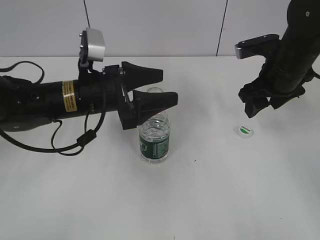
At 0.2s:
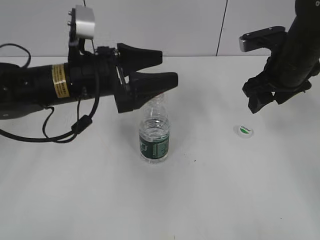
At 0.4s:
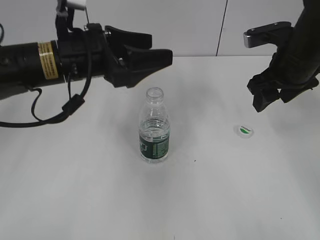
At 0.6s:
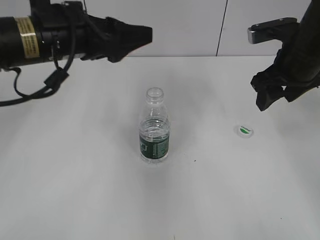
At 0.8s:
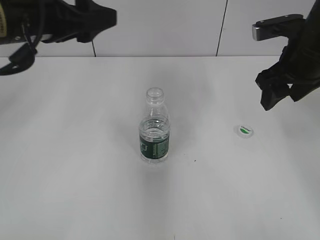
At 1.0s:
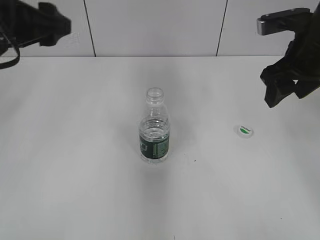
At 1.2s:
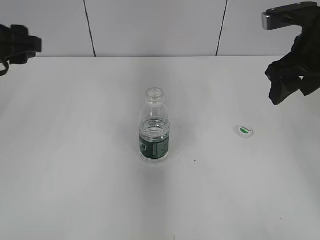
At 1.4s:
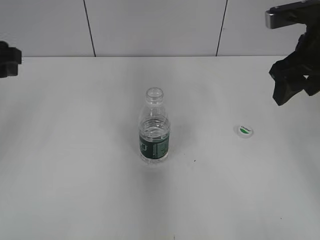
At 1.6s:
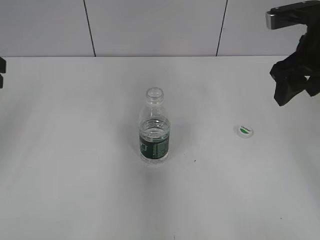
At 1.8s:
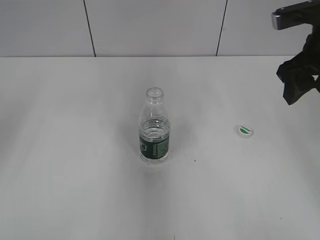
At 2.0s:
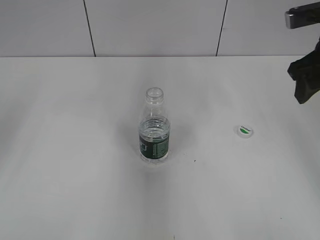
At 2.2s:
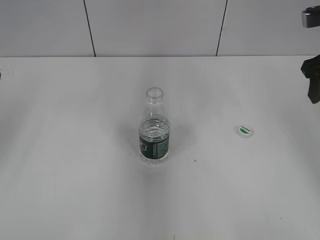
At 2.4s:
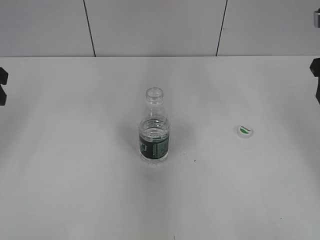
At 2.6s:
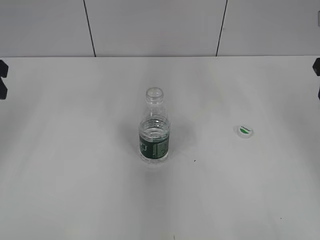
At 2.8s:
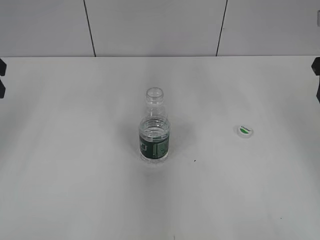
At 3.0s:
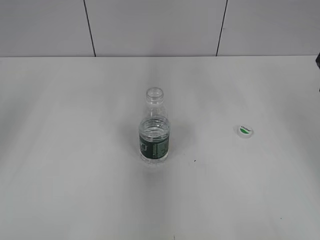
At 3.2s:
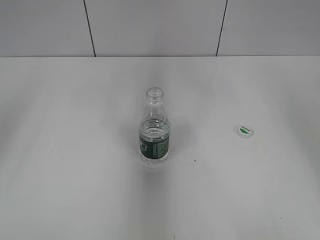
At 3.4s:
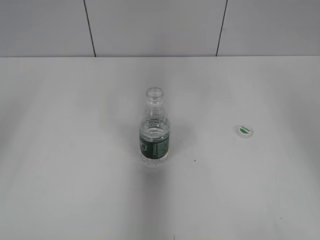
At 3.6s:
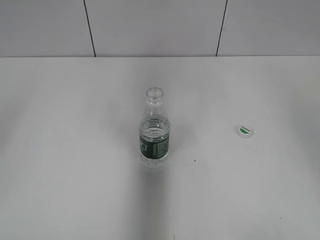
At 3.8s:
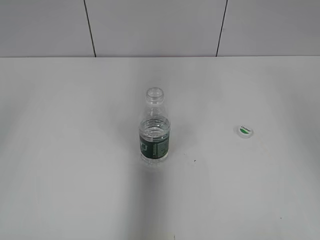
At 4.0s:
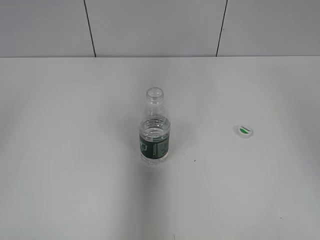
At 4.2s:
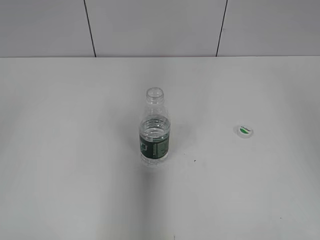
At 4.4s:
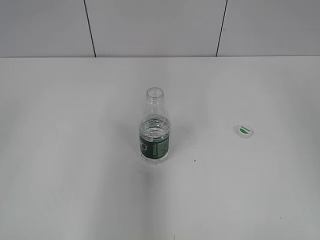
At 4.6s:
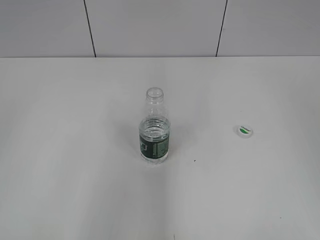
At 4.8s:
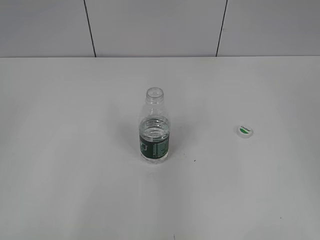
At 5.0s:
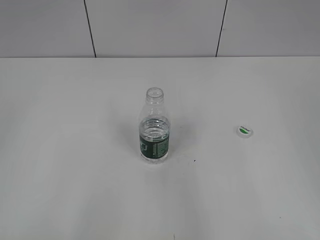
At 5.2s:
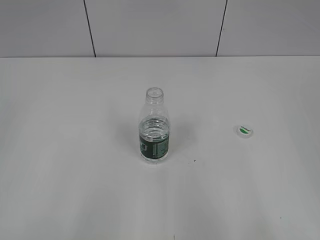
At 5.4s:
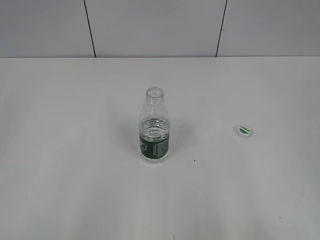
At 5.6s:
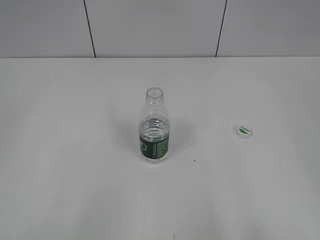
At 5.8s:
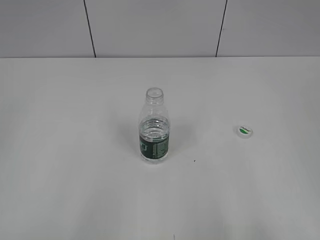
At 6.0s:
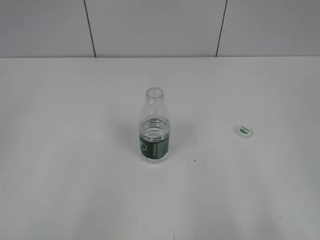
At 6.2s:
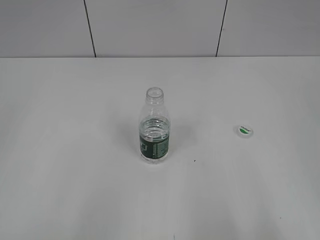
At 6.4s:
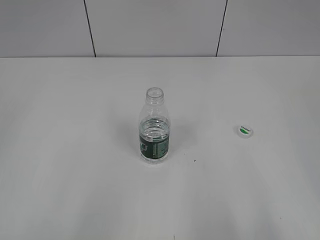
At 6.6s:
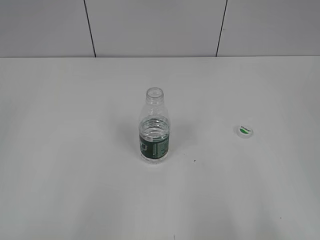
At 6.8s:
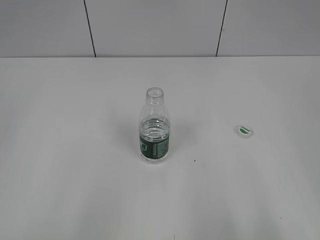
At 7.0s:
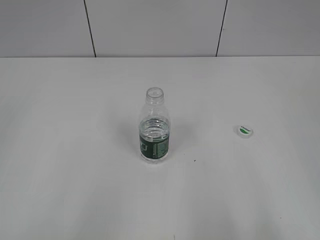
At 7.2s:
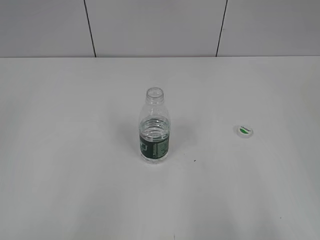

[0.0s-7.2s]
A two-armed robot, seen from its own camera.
0.0s to 1.4s: The right gripper heads upward, covering approximately 10 cm. Meanwhile the left gripper goes about 20 cm to the left and upward.
1.4s to 2.8s: The right gripper travels to the right by about 5 cm.
4.4s to 5.8s: The right gripper travels backward and downward by approximately 20 cm; the left gripper moves roughly 5 cm.

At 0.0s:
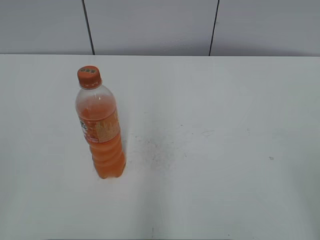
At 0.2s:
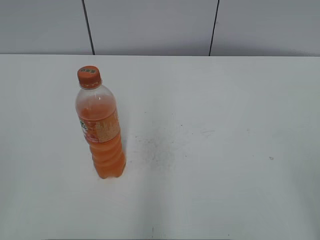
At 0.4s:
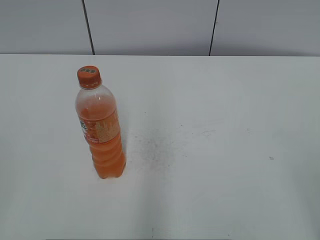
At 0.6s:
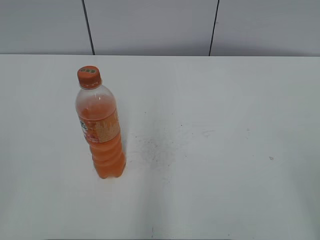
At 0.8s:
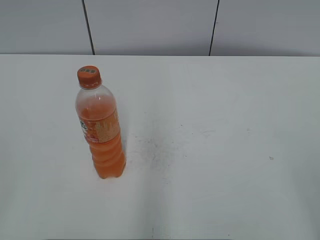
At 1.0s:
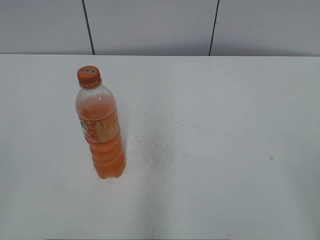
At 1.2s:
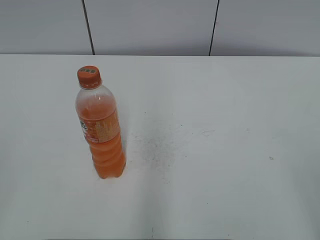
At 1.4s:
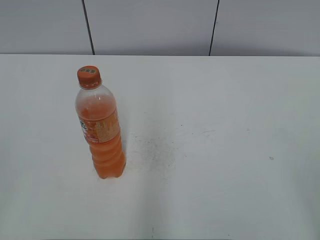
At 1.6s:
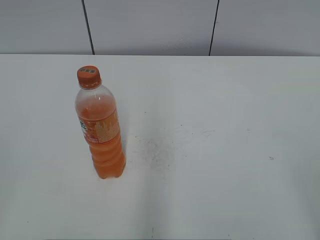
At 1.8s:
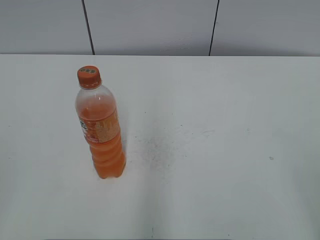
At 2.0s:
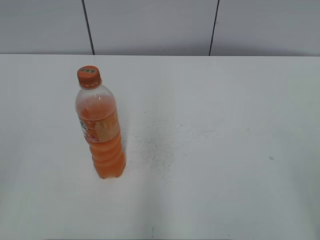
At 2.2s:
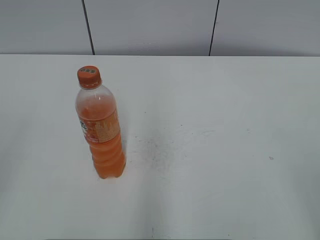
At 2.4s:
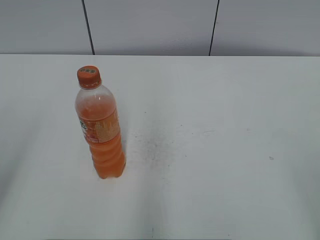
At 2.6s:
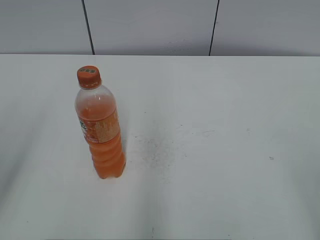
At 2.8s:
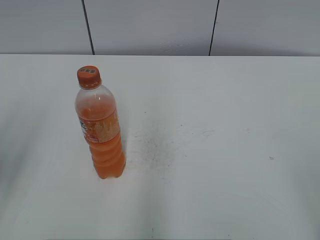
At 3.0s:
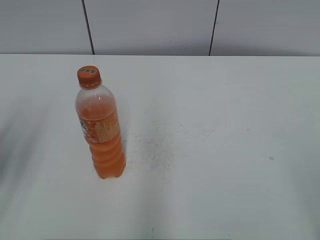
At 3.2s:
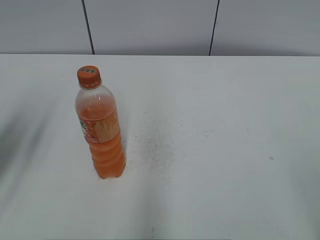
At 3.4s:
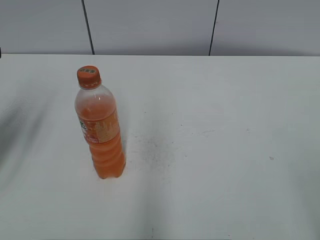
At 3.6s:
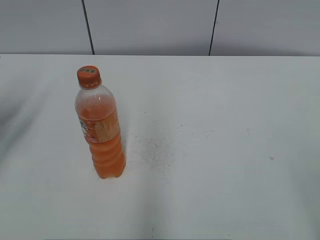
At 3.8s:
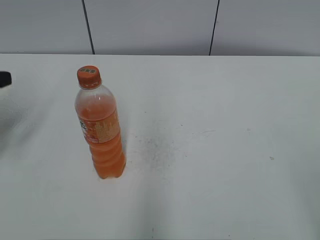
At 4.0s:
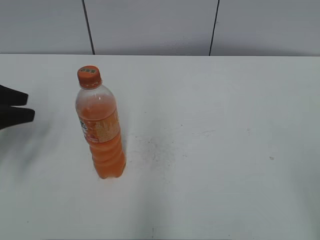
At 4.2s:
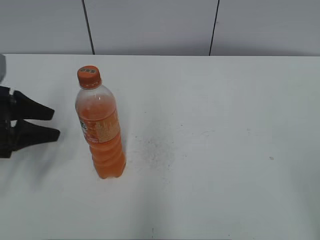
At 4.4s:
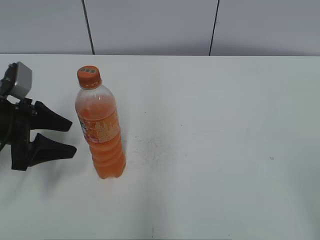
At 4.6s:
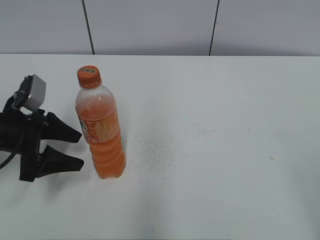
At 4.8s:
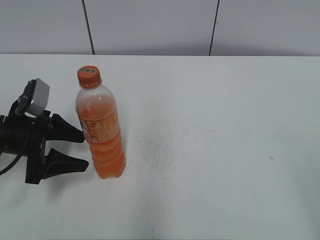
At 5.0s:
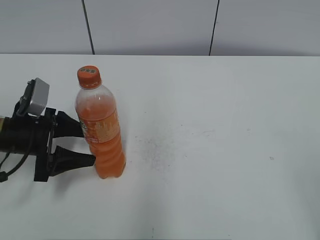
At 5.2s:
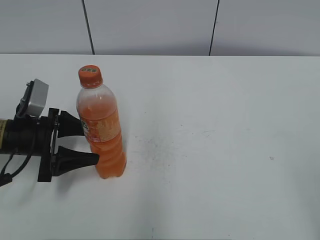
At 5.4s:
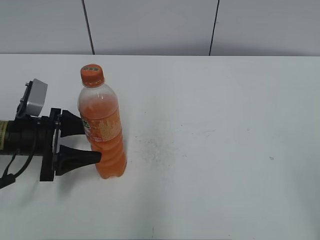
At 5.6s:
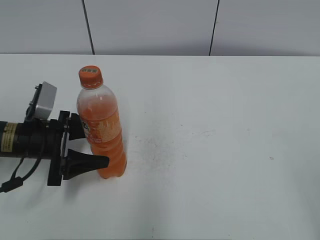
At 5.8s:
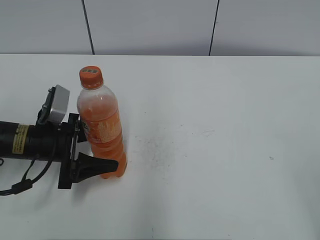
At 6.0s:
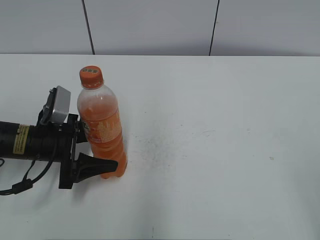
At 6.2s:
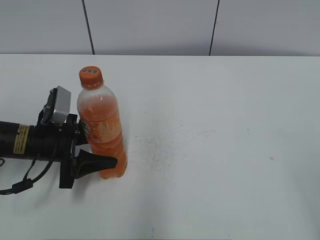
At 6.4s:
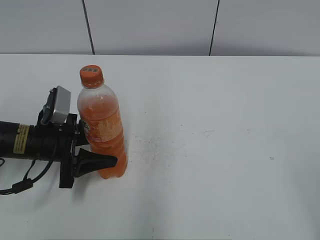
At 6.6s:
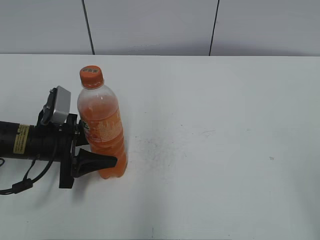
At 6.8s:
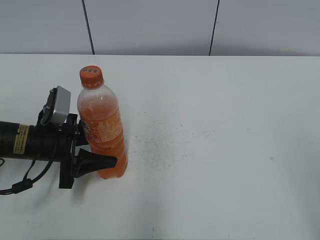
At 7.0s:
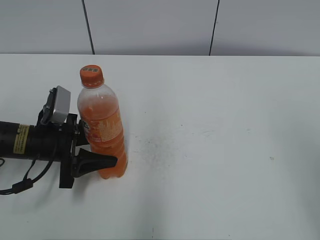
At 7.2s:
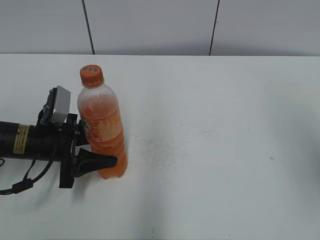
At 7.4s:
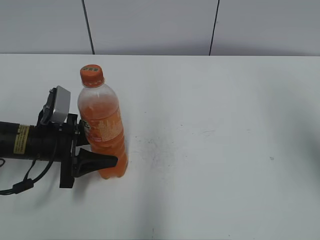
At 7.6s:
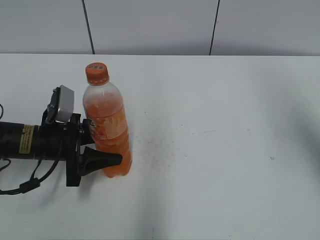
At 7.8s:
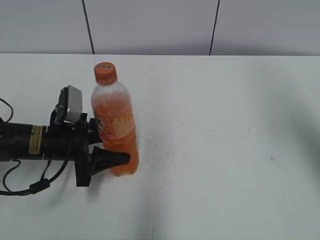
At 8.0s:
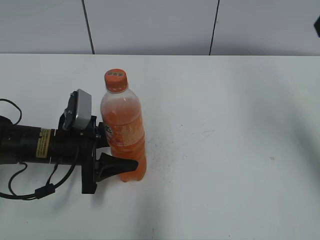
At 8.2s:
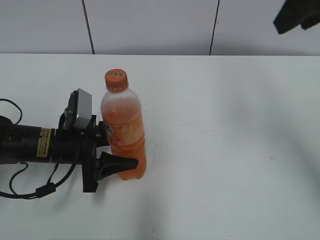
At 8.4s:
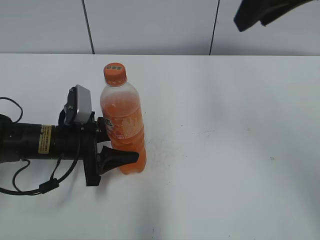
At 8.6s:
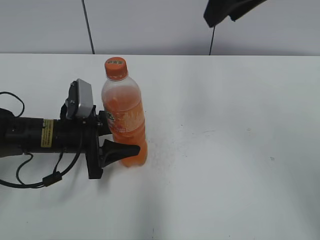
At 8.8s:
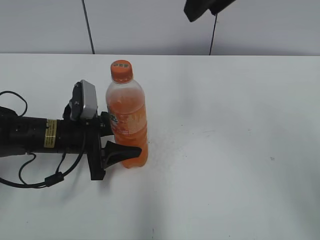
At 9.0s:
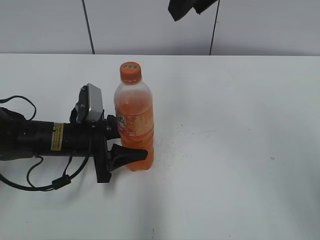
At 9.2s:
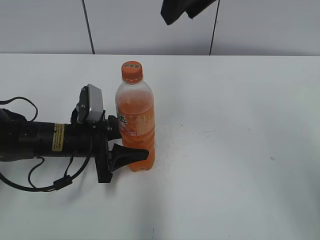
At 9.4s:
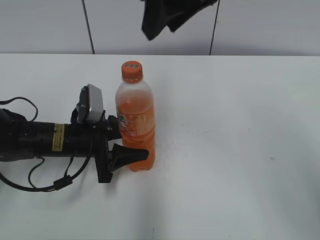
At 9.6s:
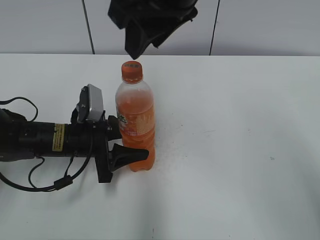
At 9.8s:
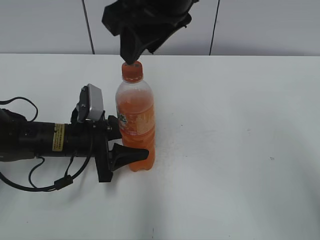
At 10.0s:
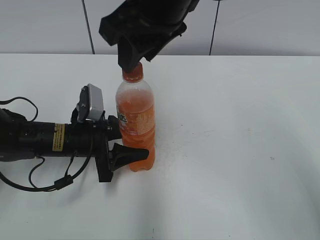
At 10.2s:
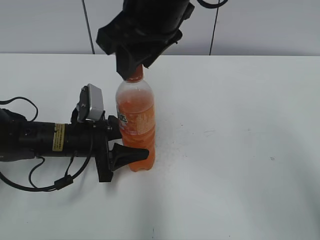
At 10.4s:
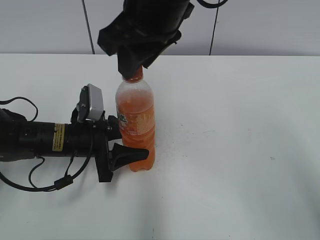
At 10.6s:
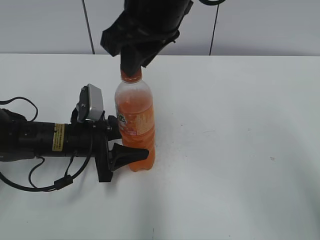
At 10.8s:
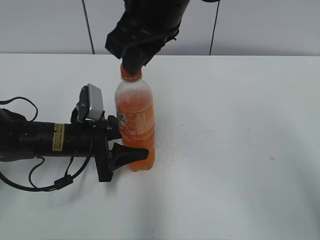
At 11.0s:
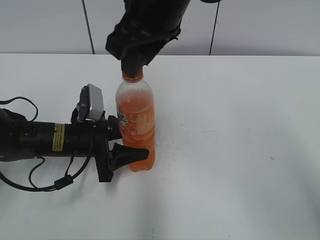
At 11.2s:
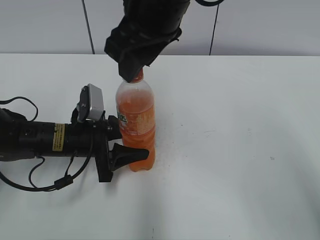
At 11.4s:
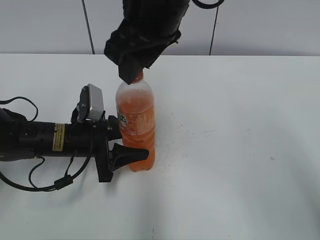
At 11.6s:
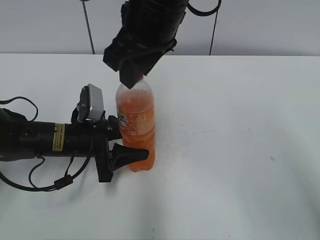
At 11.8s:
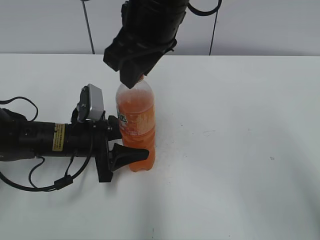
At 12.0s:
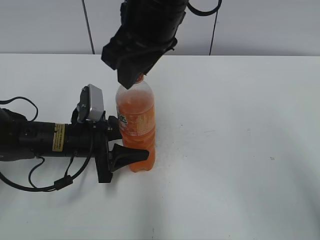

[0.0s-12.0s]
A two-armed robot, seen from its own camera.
Step, 0.0s to 6.6s: Grab the Mirinda with the left hand.
Step, 6.8s to 9.2s: Move the Mirinda from left to right.
1.6s to 3.0s: The left gripper goes roughly 20 cm forward, and opens, then closes once more.
3.0s to 4.4s: The left gripper shifts some 15 cm forward and downward, and opens up.
4.4s to 6.0s: The left gripper moves to the right and downward, about 10 cm.
6.0s to 7.6s: The left gripper closes its fingers. Meanwhile the right gripper moves forward and upward, some 25 cm, and closes its fingers.
7.6s to 9.0s: The right gripper moves to the left, approximately 20 cm.
9.0s to 10.4s: The right gripper is displaced to the left and downward by some 10 cm.
10.4s to 12.0s: The grippers make only small movements.

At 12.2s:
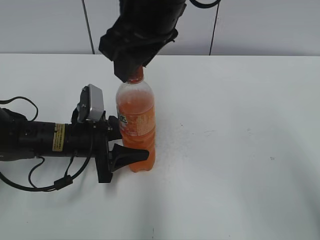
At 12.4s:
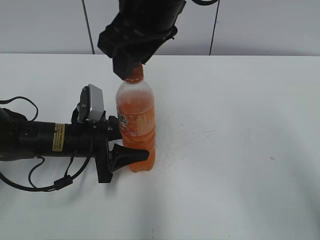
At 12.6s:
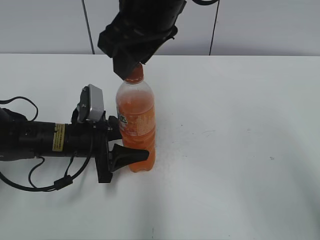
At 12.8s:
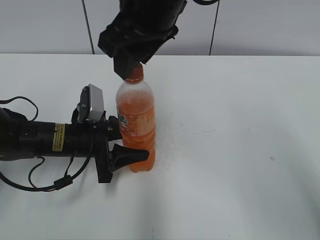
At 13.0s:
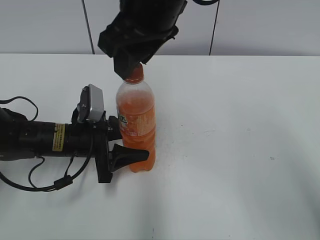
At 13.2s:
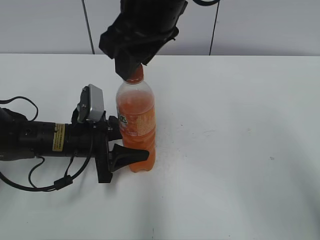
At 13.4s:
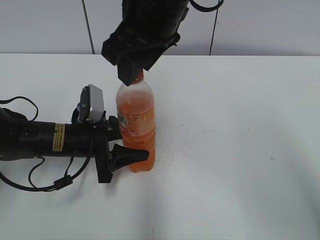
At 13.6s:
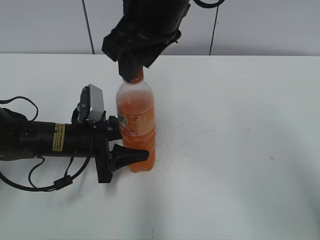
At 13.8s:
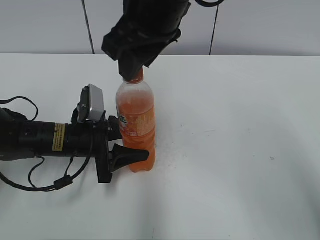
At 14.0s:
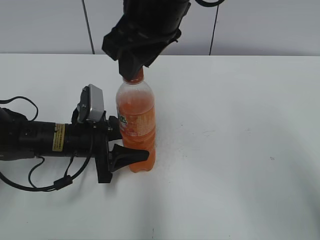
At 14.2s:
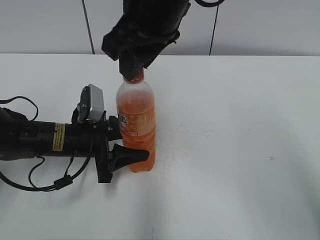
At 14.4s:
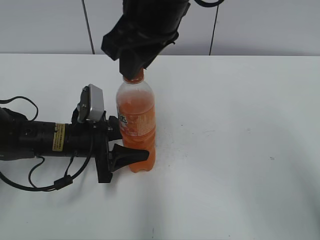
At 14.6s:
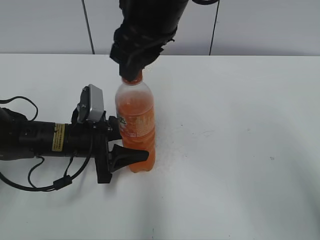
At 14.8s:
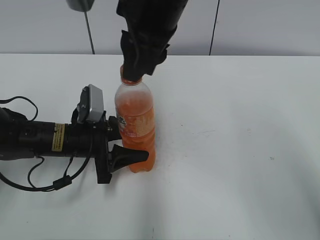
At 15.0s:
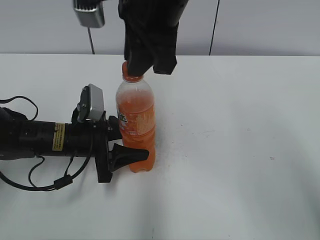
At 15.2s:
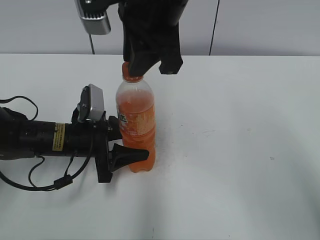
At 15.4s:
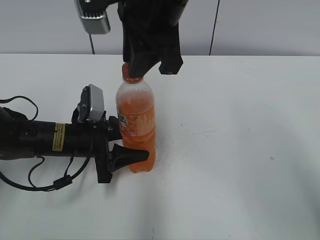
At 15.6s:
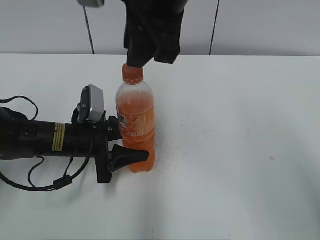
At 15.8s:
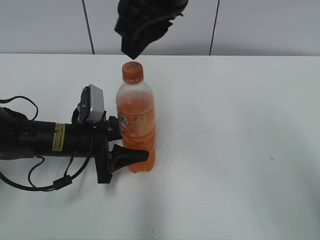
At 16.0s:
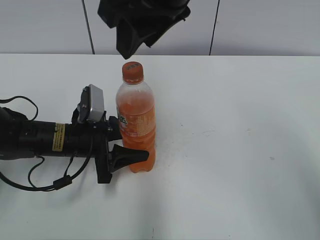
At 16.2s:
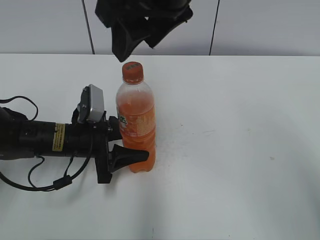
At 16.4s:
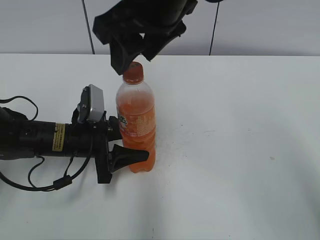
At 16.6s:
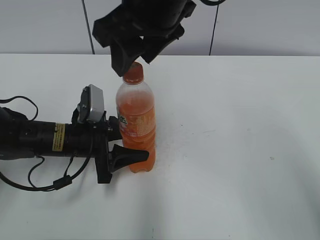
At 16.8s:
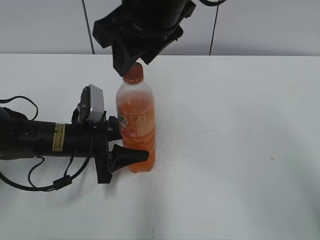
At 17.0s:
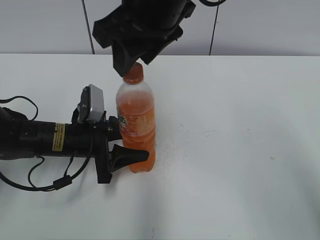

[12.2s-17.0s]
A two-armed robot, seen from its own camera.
12.2s to 13.8s: Neither gripper changes place.
13.8s to 15.4s: The right gripper closes its fingers.
15.4s to 17.0s: The right gripper opens.
